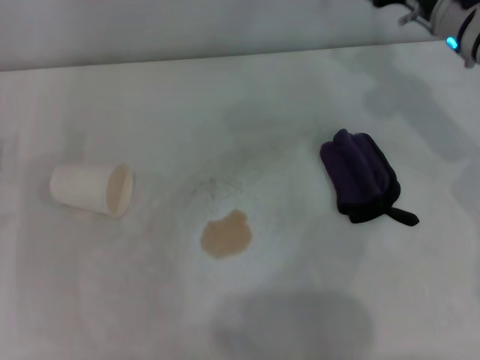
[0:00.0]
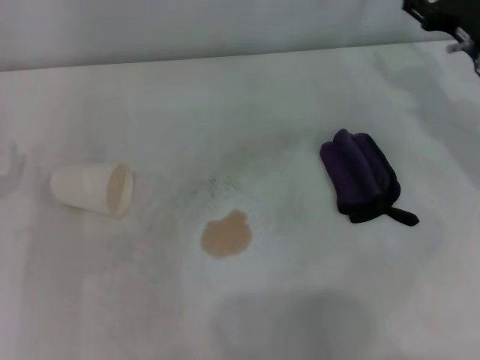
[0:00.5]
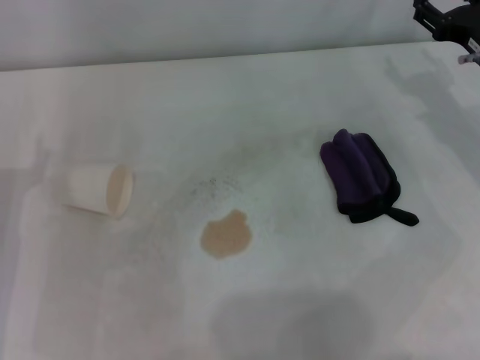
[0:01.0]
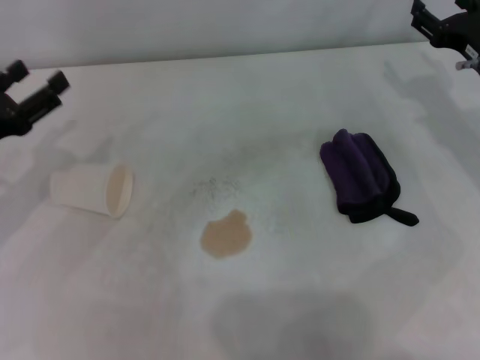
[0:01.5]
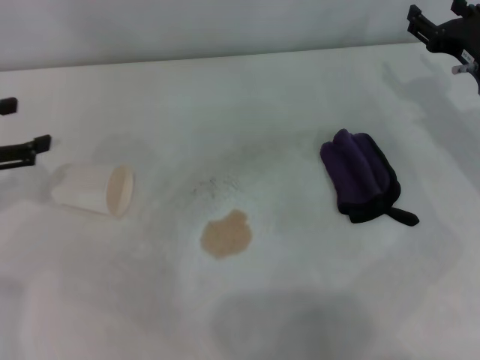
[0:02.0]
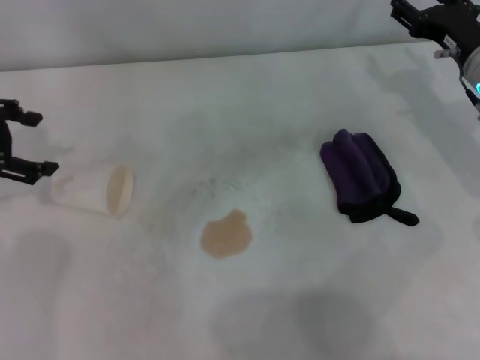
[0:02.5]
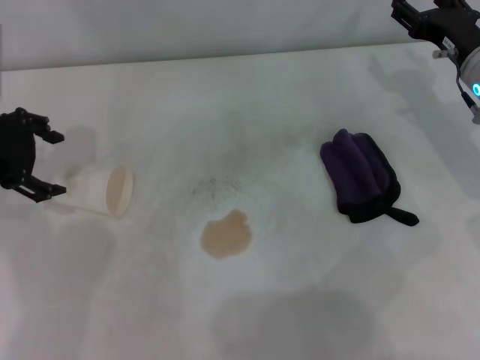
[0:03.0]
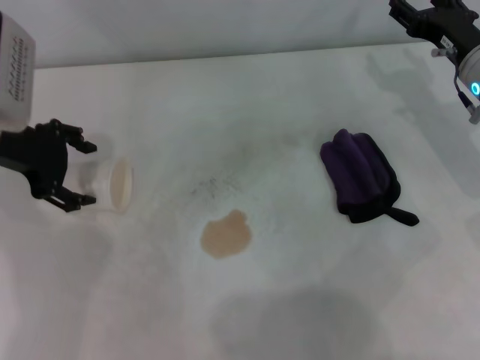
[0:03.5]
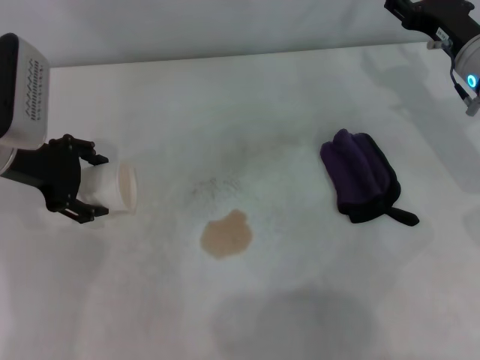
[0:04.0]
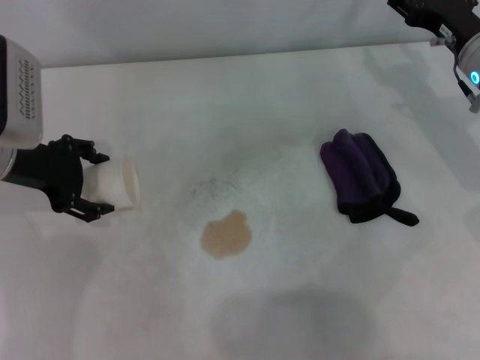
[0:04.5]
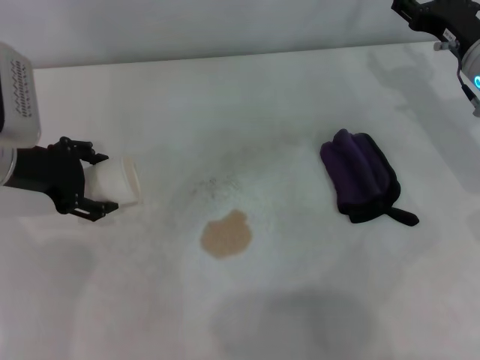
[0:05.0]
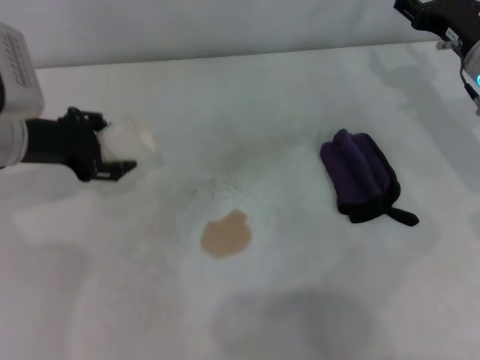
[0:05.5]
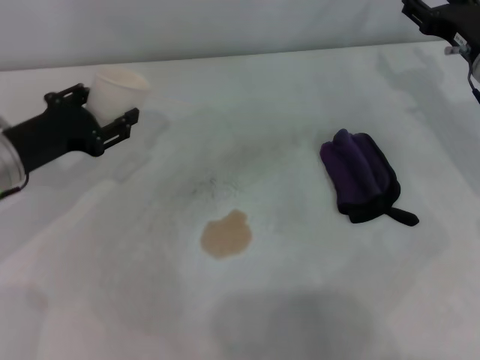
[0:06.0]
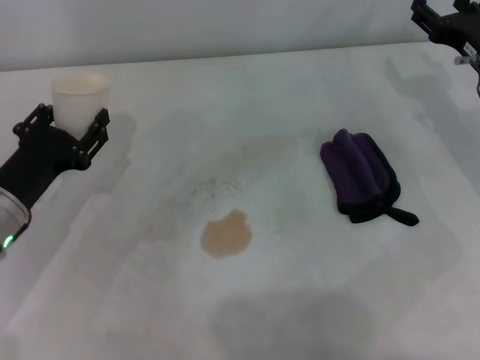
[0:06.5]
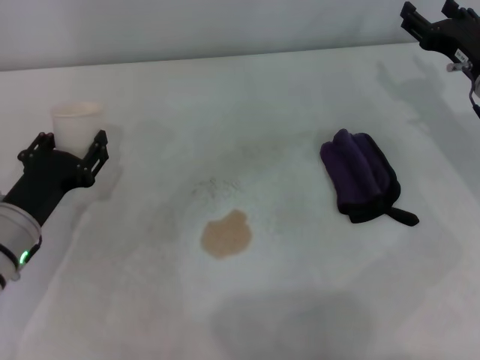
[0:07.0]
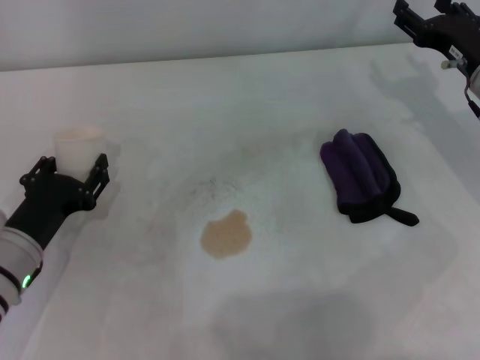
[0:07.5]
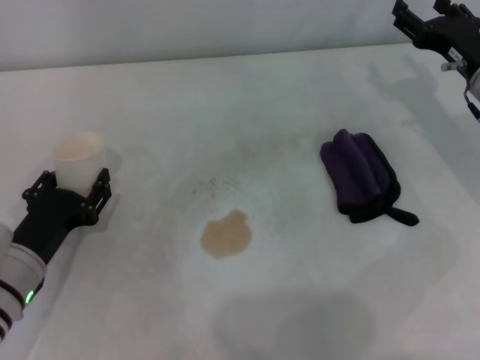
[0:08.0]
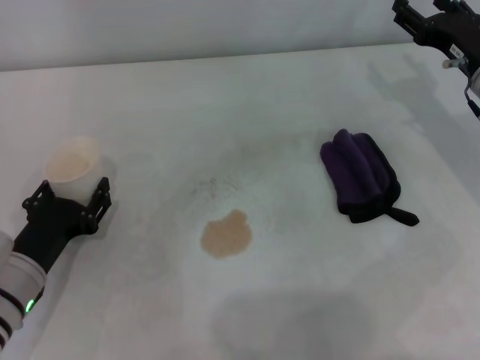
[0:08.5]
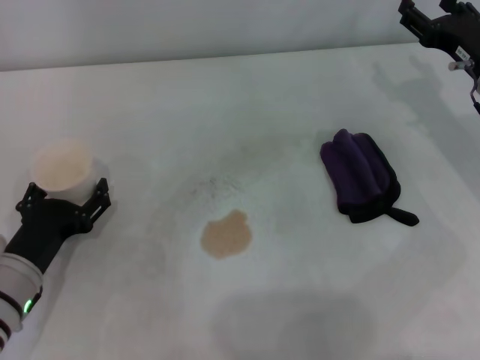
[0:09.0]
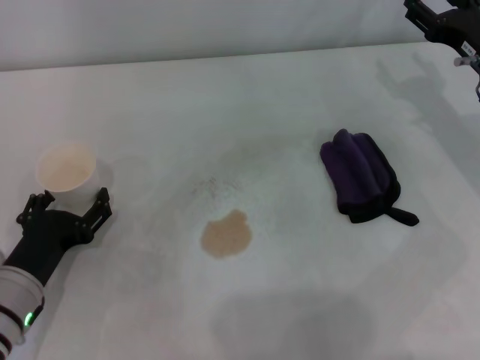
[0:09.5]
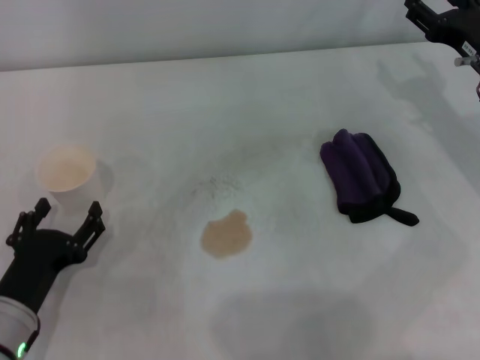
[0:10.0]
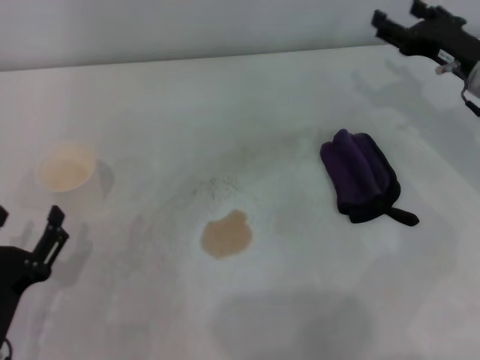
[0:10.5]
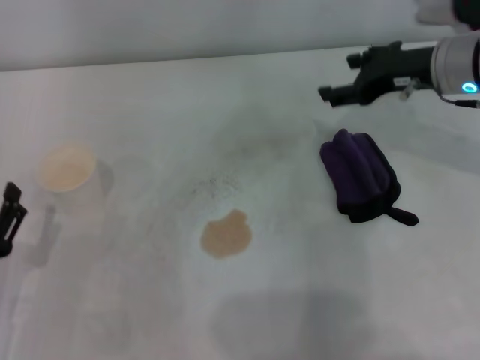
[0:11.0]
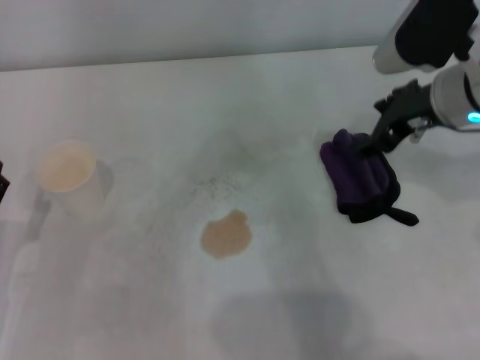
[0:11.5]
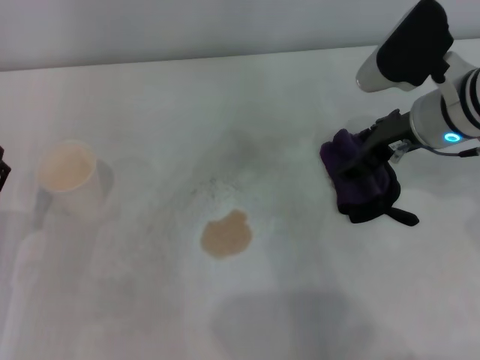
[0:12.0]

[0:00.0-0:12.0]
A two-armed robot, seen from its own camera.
Step, 0:00.0 to 0:03.5: Grasp the paper cup with the left gripper.
Step, 0:04.0 to 0:09.0: Stand the paper cup upright with the left gripper.
0:00.0 to 0:02.0: The left gripper shifts about 10 cm upward. Meanwhile the right gripper shifts approximately 5 cm backward.
0:02.0 to 0:04.0: The left gripper goes some 10 cm to the right and forward.
0:04.0 to 0:06.0: The left gripper ends up about 5 cm from where it was, and closes up.
0:06.0 to 0:08.0: The left gripper goes some 15 cm backward and downward.
0:08.0 to 0:10.0: The left gripper travels backward by roughly 5 cm, and opens.
0:10.0 to 0:12.0: The right gripper moves to the left, some 10 cm; the left gripper moves approximately 5 cm.

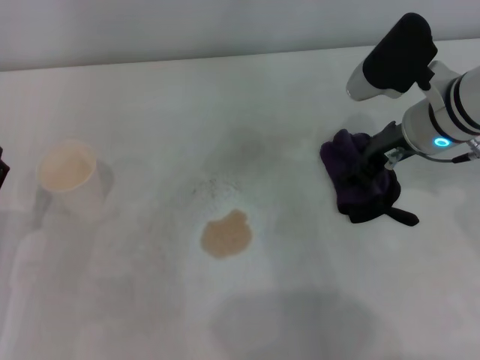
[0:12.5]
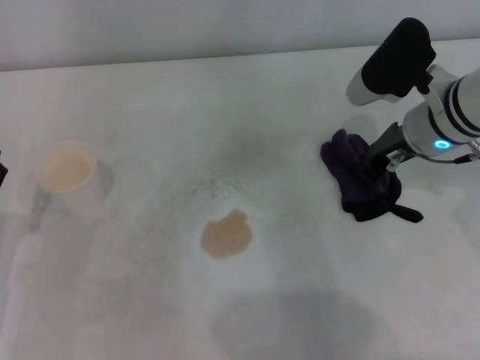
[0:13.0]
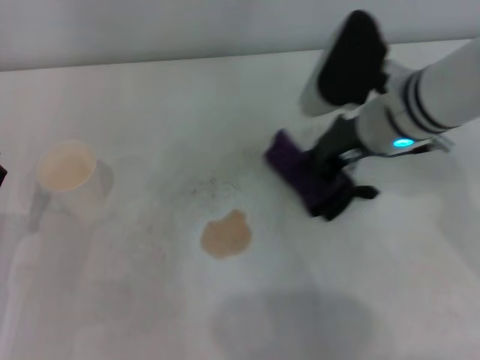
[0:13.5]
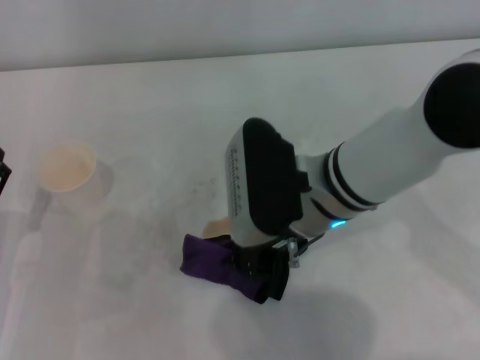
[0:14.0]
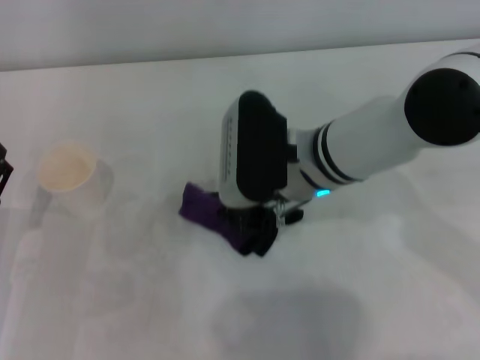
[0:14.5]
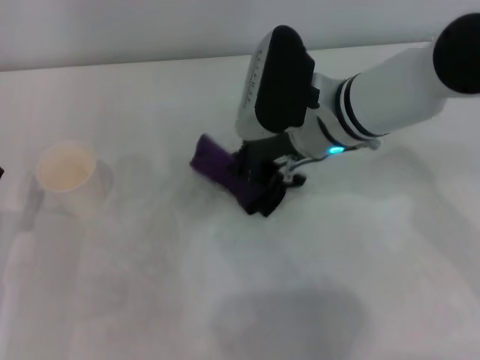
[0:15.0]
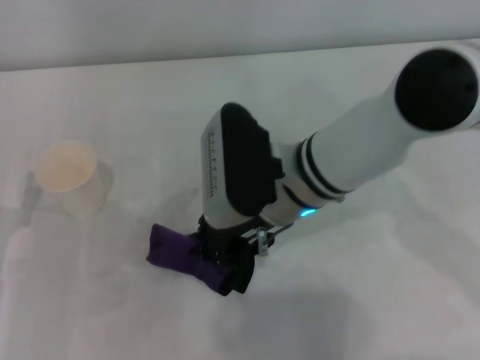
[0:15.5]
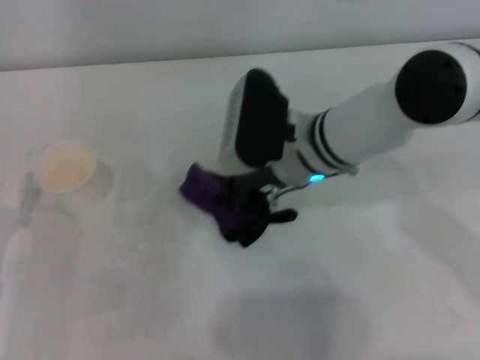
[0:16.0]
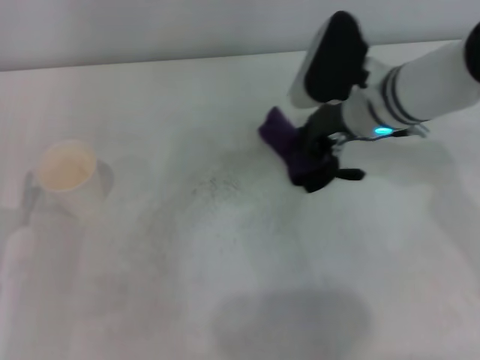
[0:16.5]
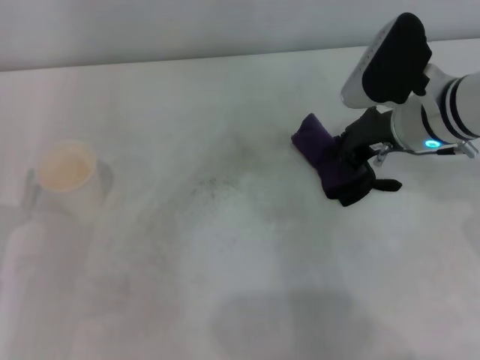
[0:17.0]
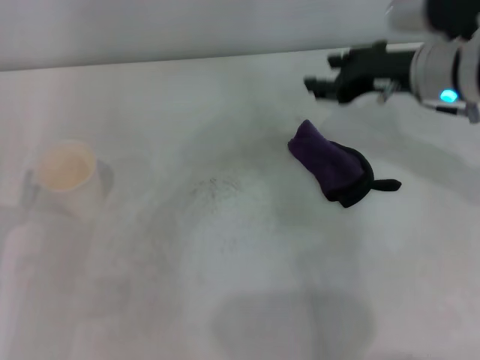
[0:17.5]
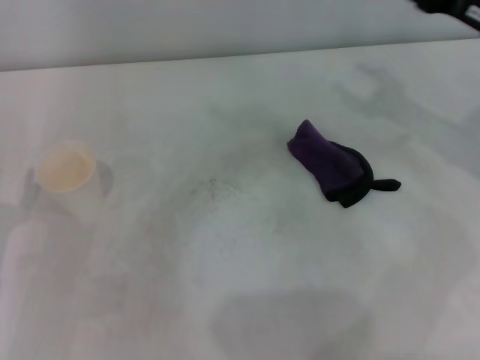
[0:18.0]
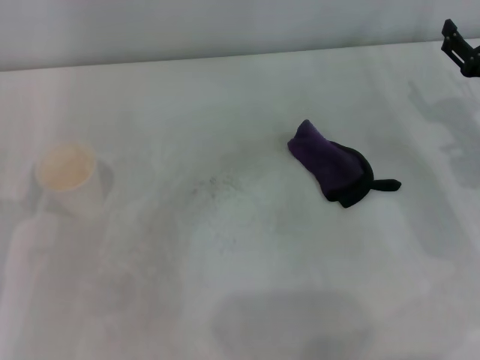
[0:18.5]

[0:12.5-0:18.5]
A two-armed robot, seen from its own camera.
Step, 0:13.0 to 0:16.0: Wipe the stains off the table with the right gripper.
Step, 0:16.5 to 0:17.0: Place the rag on the table with the right gripper.
0:12.5 to 0:14.5: The right gripper goes approximately 15 cm to the left, and closes.
0:14.5 to 0:16.5: The right gripper shifts roughly 10 cm to the right and forward.
0:16.5 to 0:18.5: The right gripper is displaced to the right and backward by roughly 15 cm, and opens.

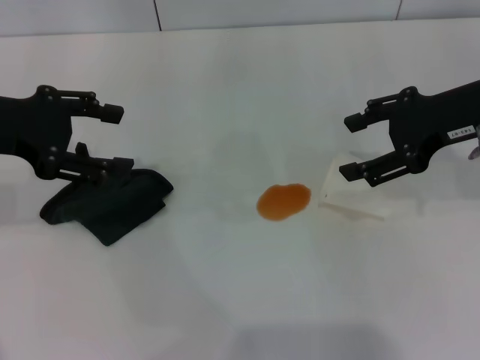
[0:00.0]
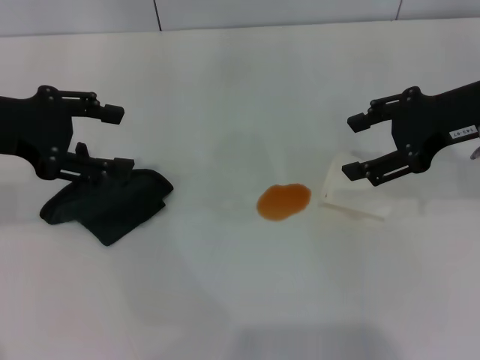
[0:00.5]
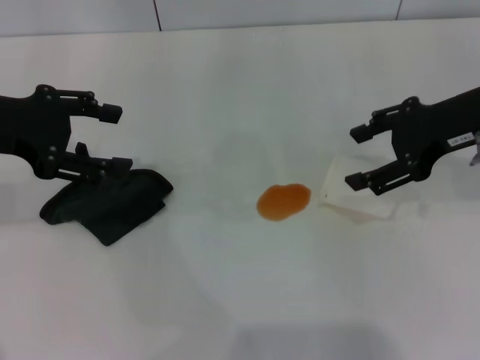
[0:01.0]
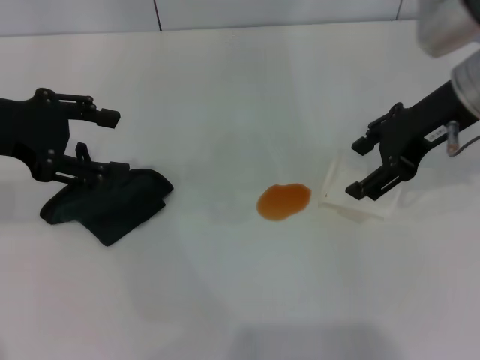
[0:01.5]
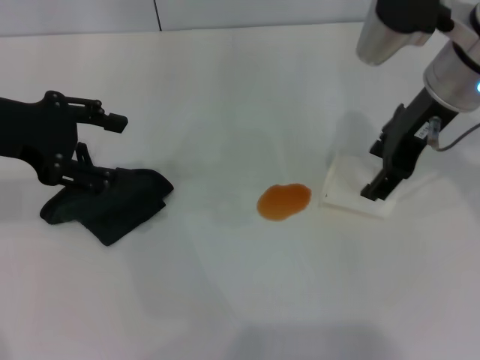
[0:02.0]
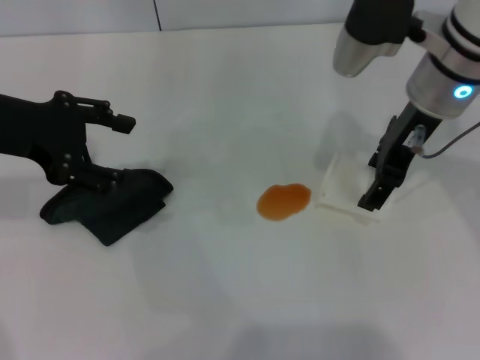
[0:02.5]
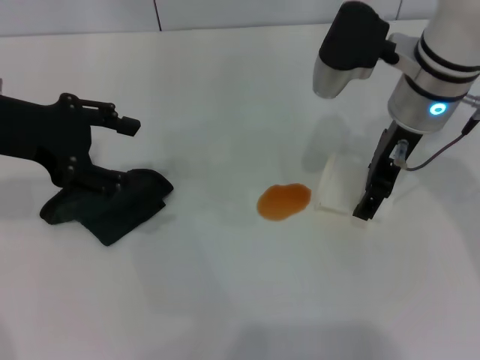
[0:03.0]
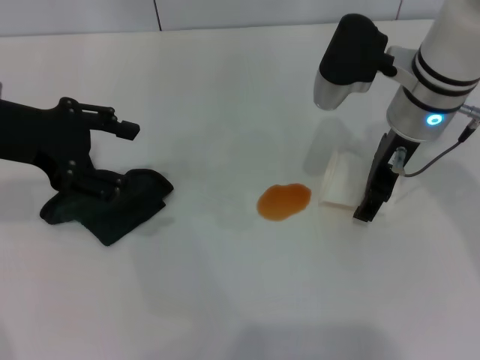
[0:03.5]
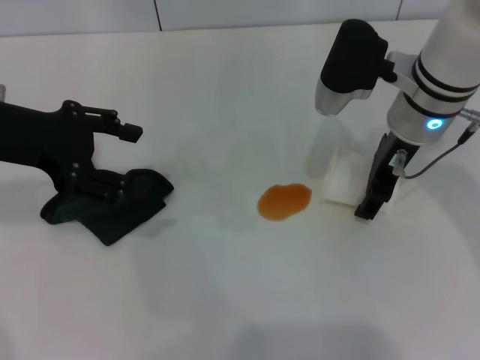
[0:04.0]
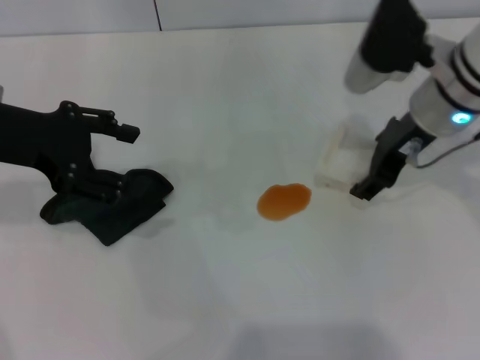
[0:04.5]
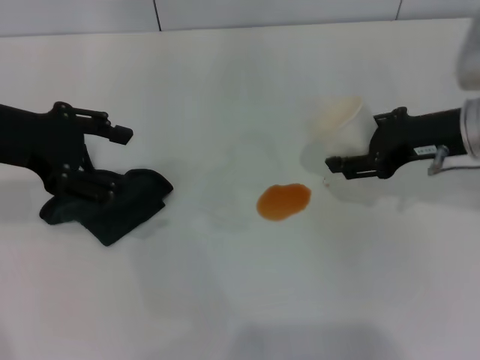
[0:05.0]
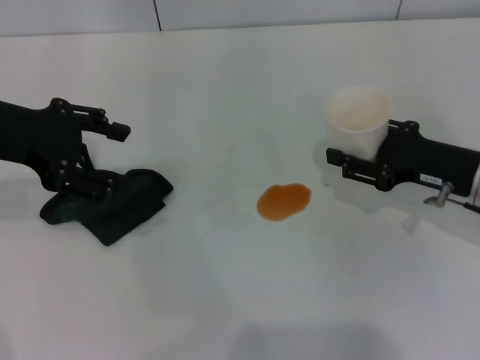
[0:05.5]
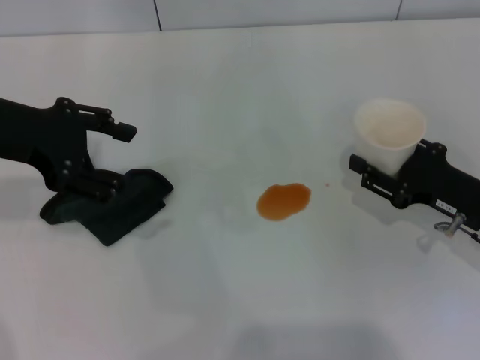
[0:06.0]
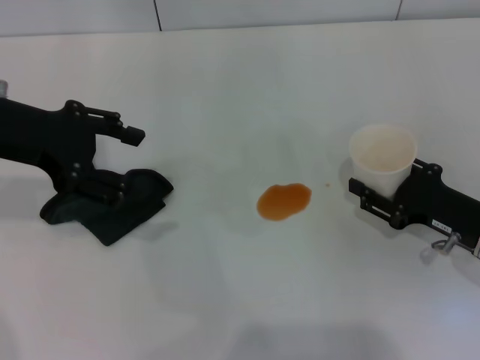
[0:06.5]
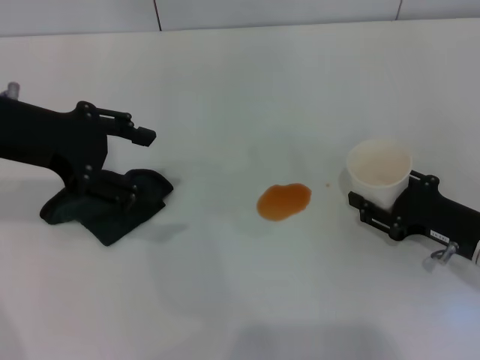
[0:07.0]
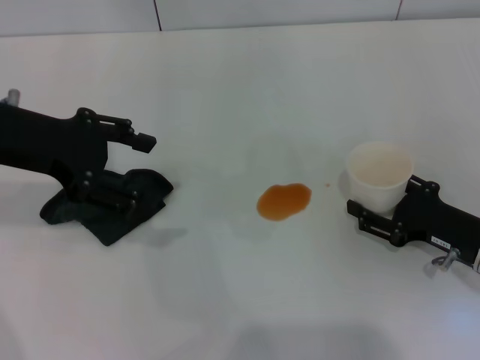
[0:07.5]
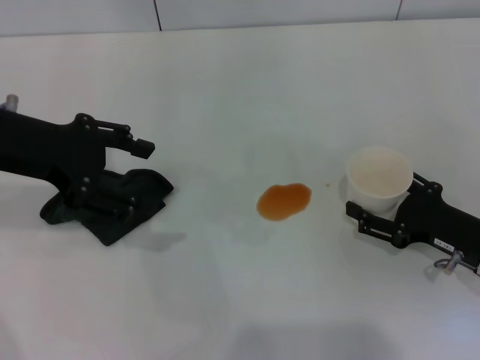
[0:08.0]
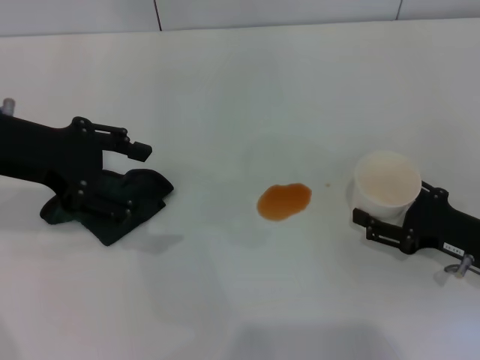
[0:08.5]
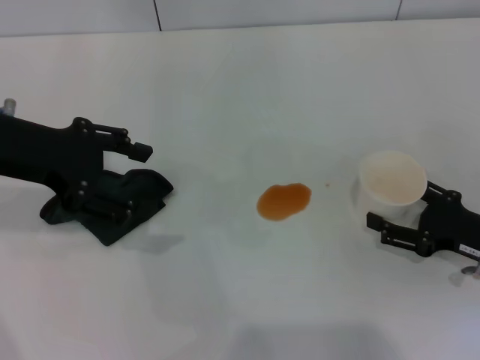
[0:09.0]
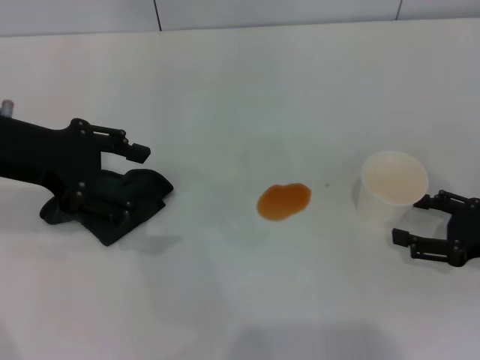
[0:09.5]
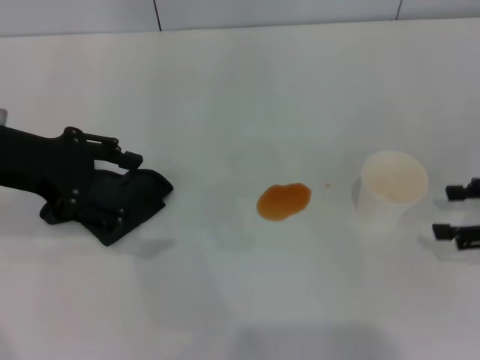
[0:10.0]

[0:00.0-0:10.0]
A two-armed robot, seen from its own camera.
Step, 0:00.0 to 0:03.5: Grasp the paper cup with the right gripper.
Step, 0:04.5 to 0:07.5: Stand the paper cup upright with the right gripper.
0:00.0 to 0:02.0: The right gripper is displaced to the left by some 5 cm.
0:02.0 to 0:04.0: The right gripper is displaced downward by some 5 cm.
0:04.0 to 0:06.0: The right gripper moves to the right, downward and backward, approximately 20 cm, and closes its fingers.
0:06.0 to 0:08.0: The right gripper opens up.
0:08.0 to 0:10.0: The right gripper heads upward and to the right, covering roughly 10 cm.
